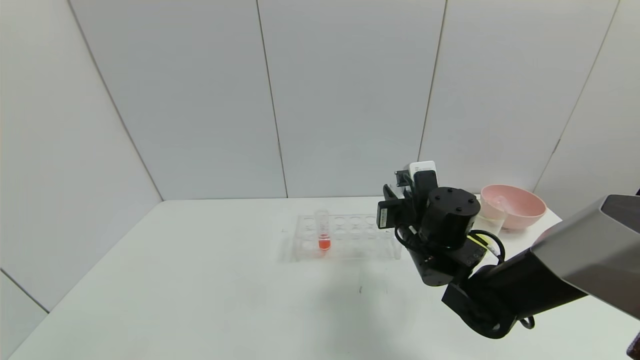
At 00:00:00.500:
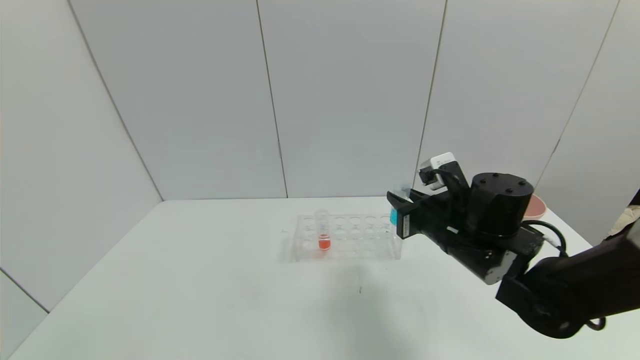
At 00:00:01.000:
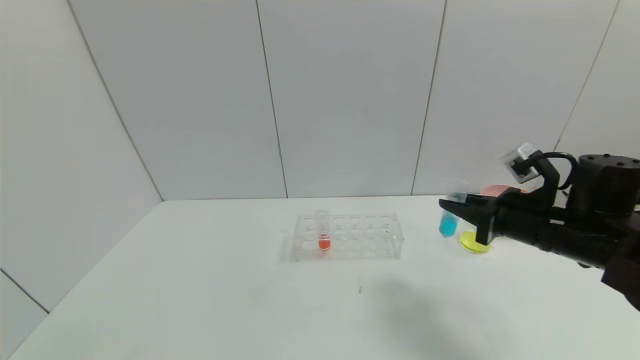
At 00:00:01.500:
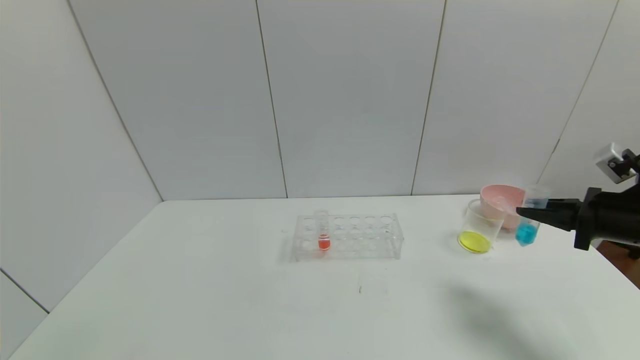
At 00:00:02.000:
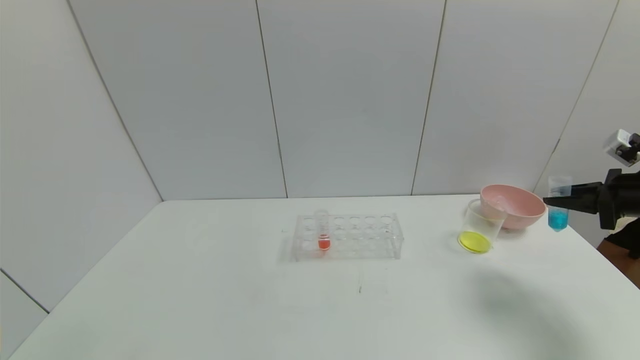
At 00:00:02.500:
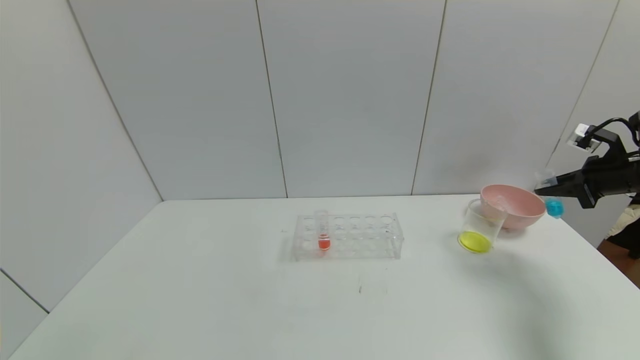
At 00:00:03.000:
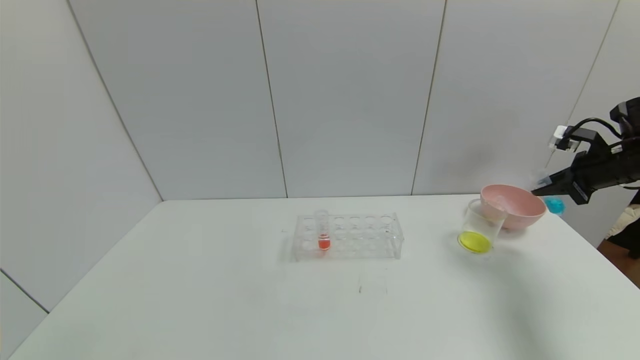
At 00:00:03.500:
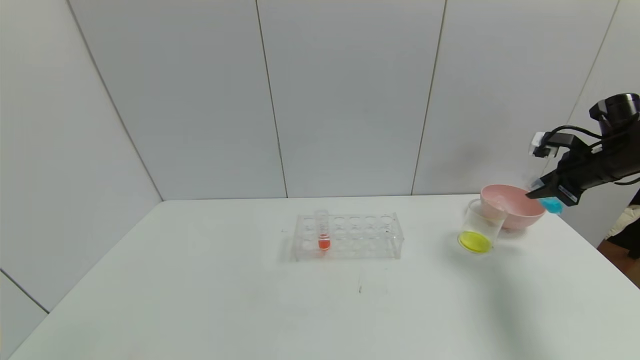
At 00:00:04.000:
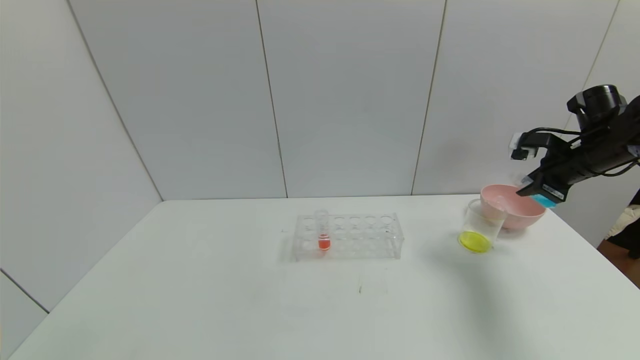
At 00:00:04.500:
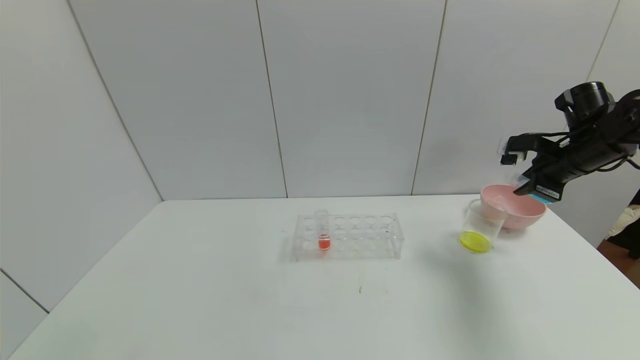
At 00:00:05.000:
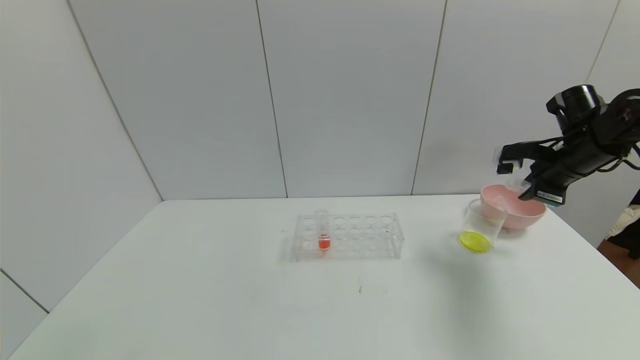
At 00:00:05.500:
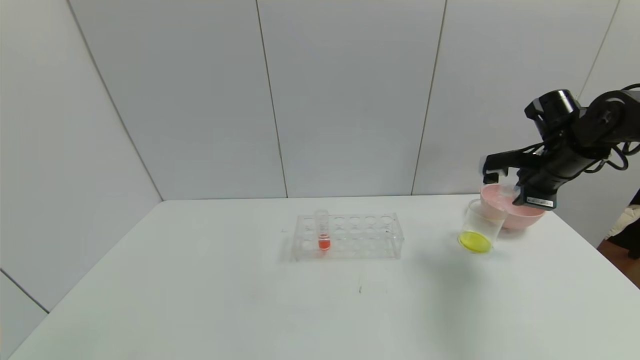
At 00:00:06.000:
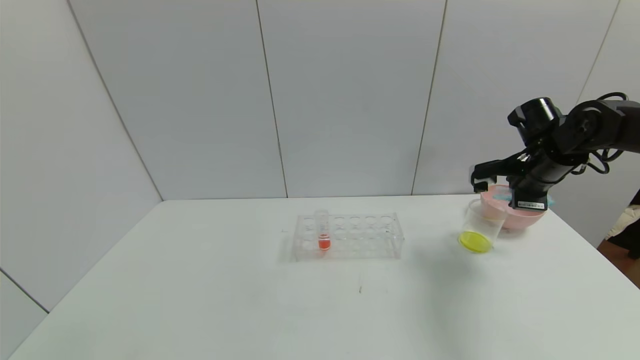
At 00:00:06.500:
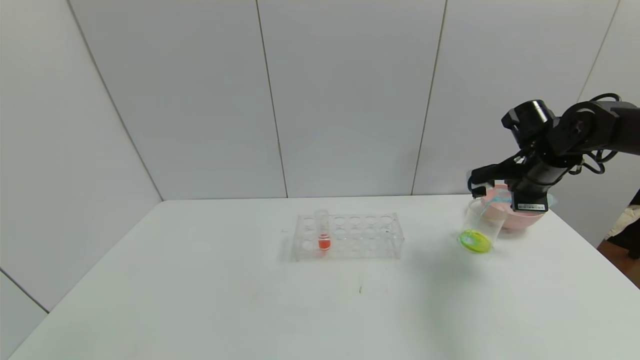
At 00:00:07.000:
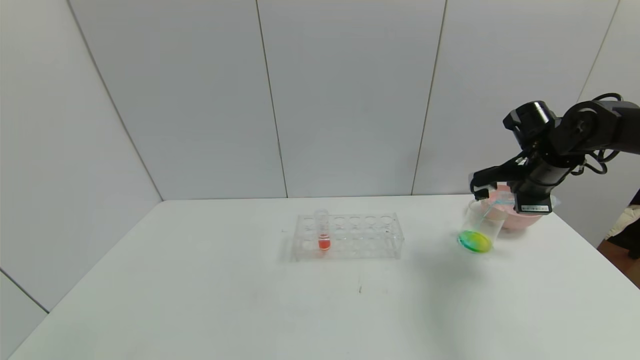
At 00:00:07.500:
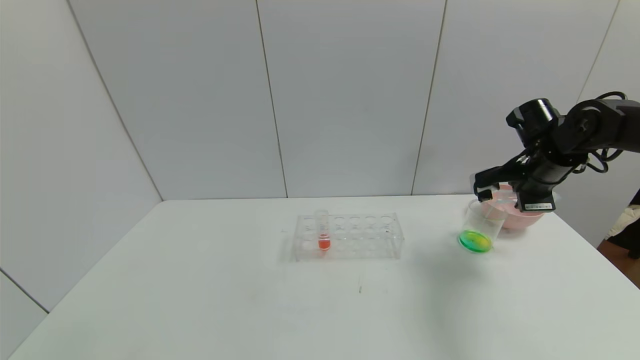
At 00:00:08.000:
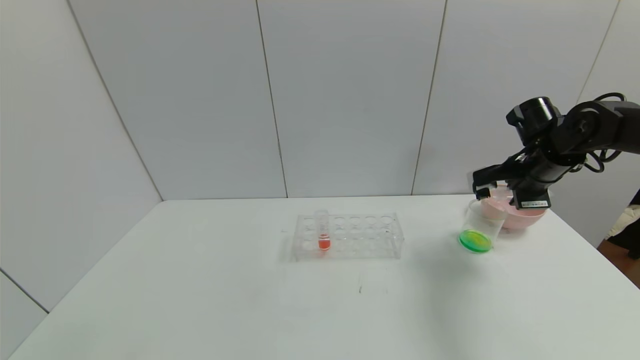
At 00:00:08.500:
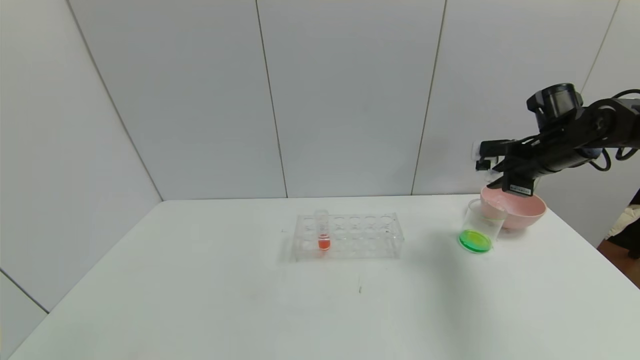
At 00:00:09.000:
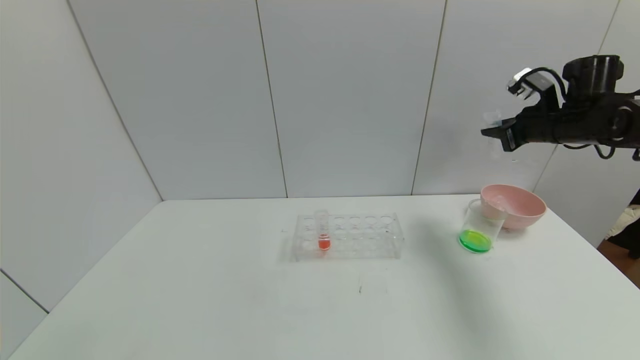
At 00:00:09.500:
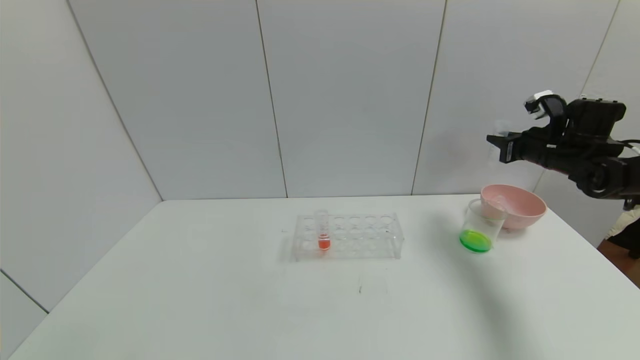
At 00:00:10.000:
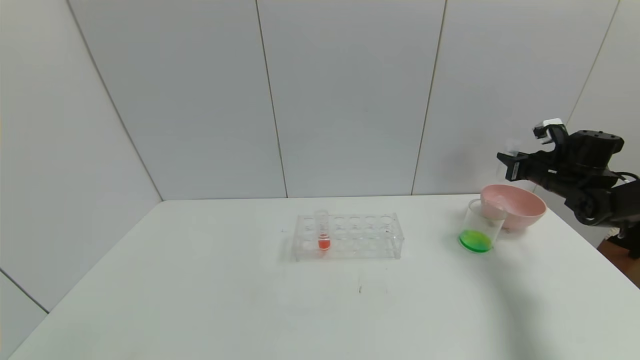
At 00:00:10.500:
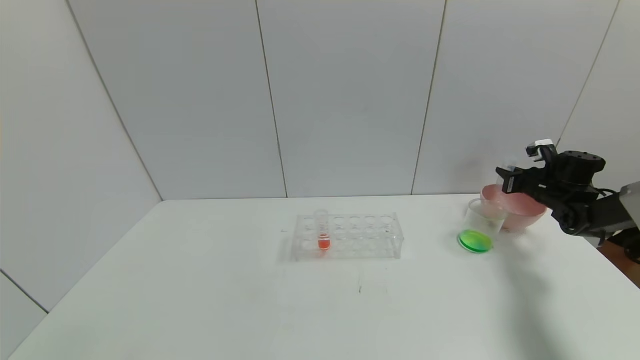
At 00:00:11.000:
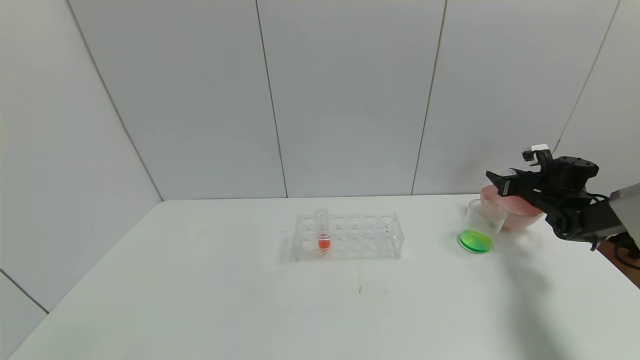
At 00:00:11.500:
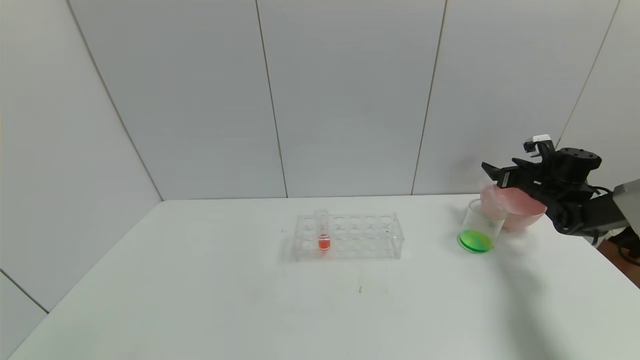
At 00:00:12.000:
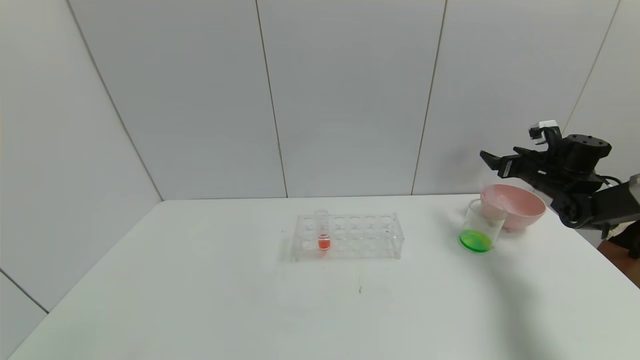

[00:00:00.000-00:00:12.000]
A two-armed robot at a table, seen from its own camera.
Task of the whole recording: pick up the test tube with yellow pigment and the test tube with blue pigment by grippers and pour them into the beaker.
Step, 00:00:00.000 to 00:00:08.000: Pour the blue reagent into the graduated cylinder with the right gripper.
Step, 00:00:08.500 to 00:00:11.000: Place the test tube into the bowl with the right gripper.
00:00:00.000 to 00:00:02.000: The right gripper shifts about 35 cm to the right.
00:00:02.000 to 00:00:04.000: The right gripper moves forward and to the left, approximately 10 cm.
00:00:04.000 to 00:00:06.000: The right gripper is displaced to the left by approximately 5 cm.
00:00:06.000 to 00:00:08.000: There are only small adjustments of the grippers.
00:00:08.000 to 00:00:10.000: The right gripper goes some 10 cm to the right and downward.
00:00:10.000 to 00:00:12.000: The right gripper opens up.

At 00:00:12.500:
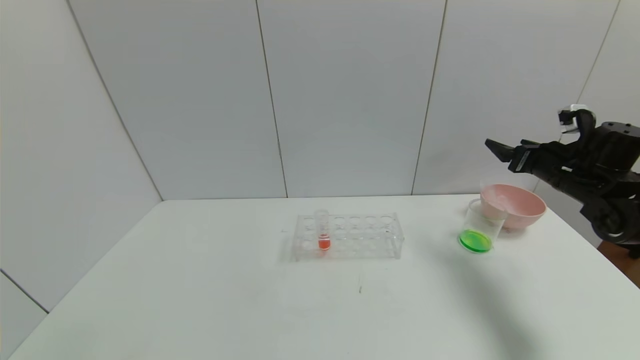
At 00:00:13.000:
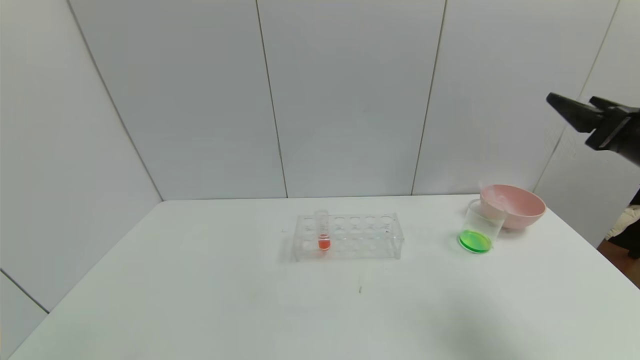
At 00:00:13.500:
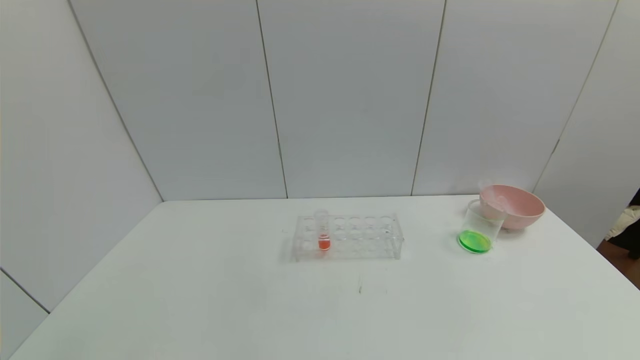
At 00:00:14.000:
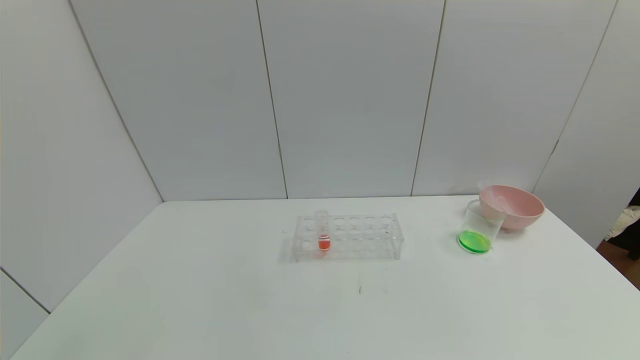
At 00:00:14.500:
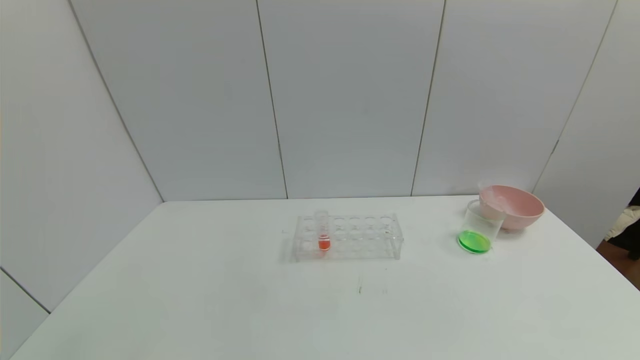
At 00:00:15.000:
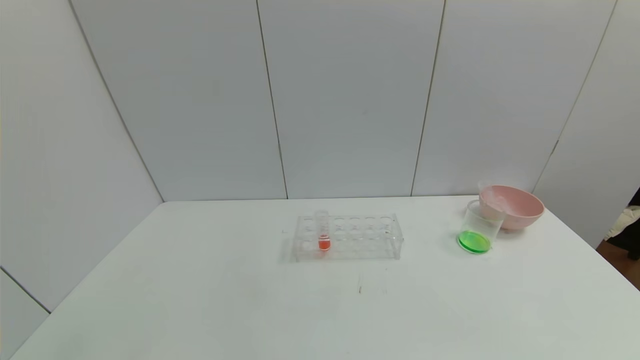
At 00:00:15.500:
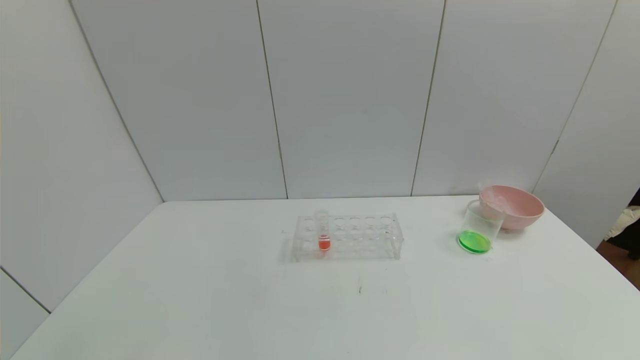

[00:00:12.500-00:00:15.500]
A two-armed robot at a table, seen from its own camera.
Task of the whole recording: pick up the test tube with yellow pigment and the test tube with blue pigment by grippers and pour them into the beaker.
00:00:12.500 to 00:00:14.000: The right gripper moves backward, approximately 40 cm.
